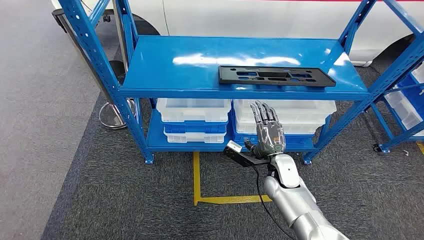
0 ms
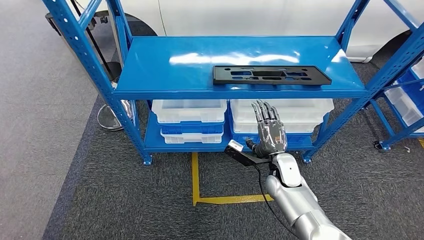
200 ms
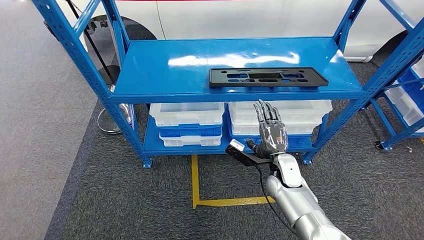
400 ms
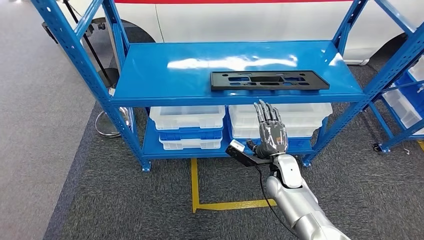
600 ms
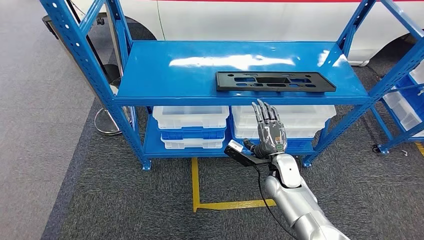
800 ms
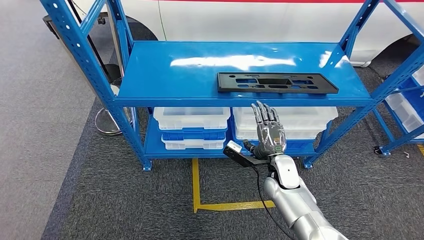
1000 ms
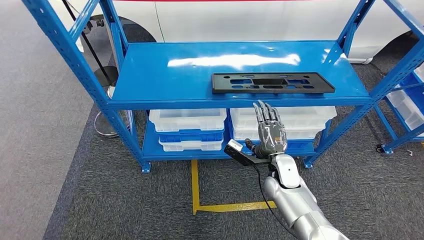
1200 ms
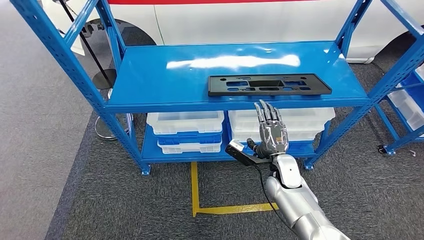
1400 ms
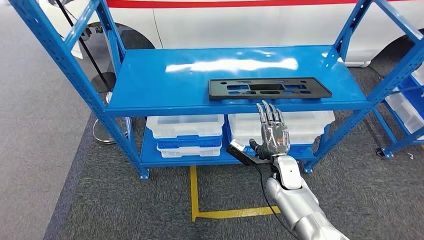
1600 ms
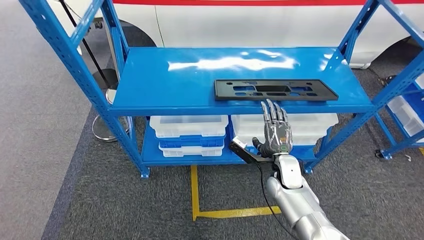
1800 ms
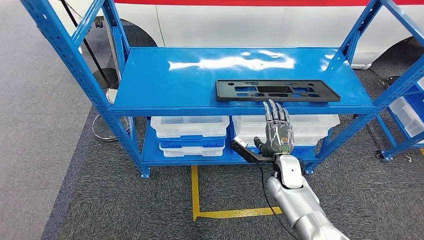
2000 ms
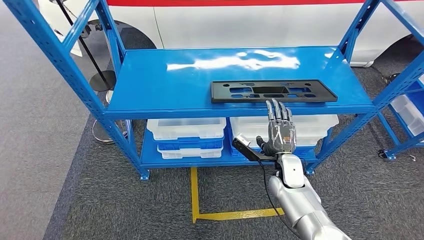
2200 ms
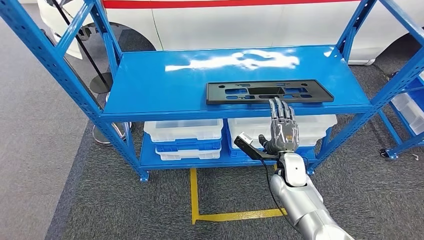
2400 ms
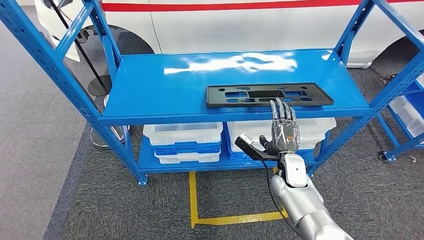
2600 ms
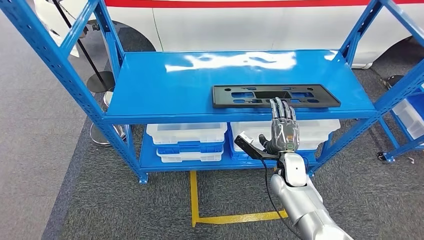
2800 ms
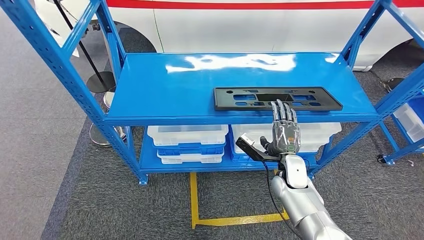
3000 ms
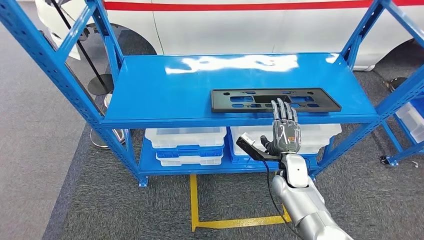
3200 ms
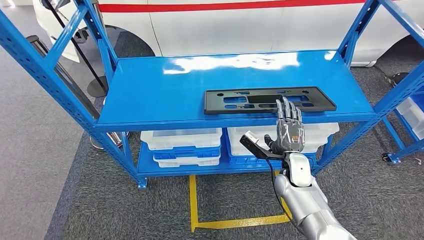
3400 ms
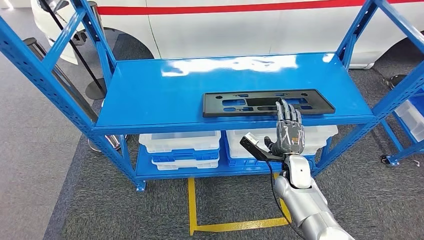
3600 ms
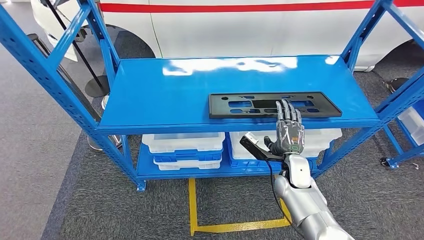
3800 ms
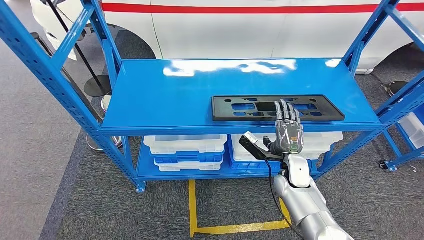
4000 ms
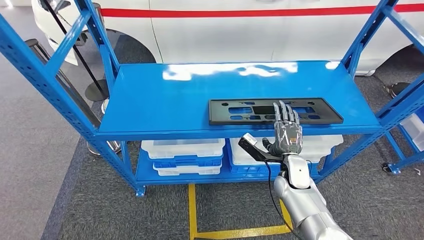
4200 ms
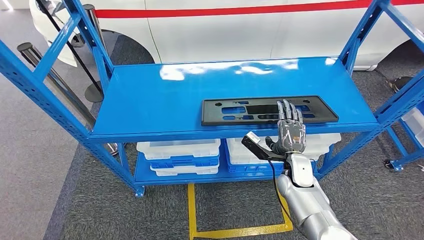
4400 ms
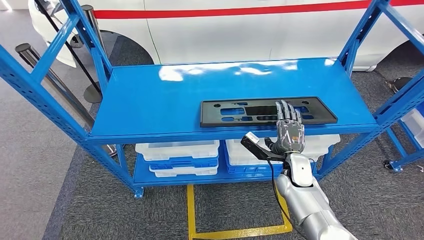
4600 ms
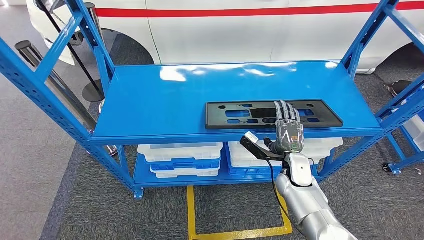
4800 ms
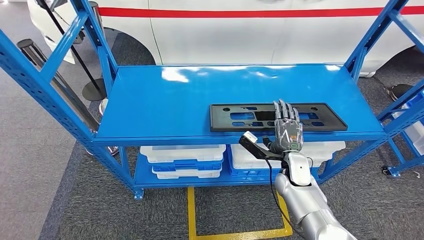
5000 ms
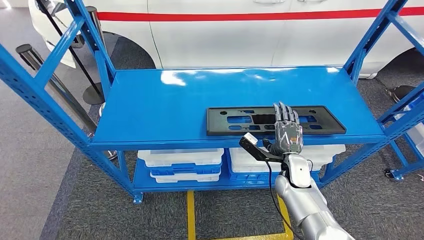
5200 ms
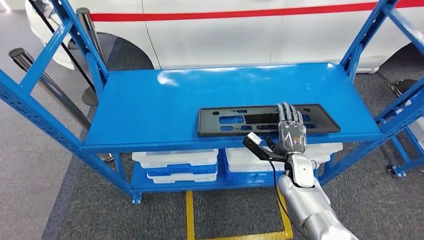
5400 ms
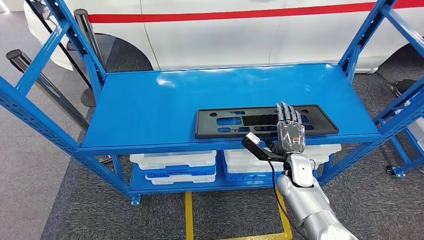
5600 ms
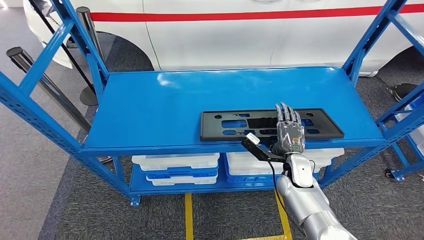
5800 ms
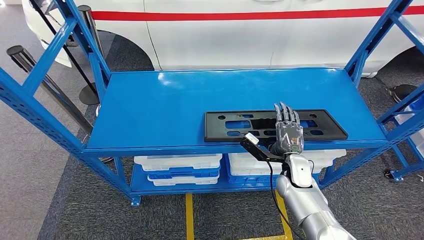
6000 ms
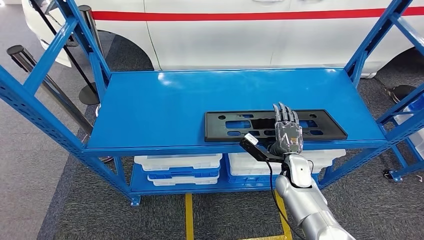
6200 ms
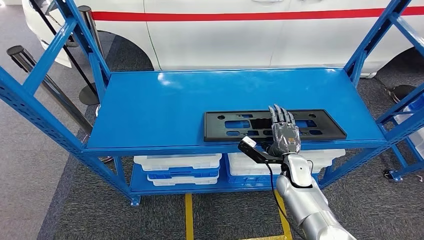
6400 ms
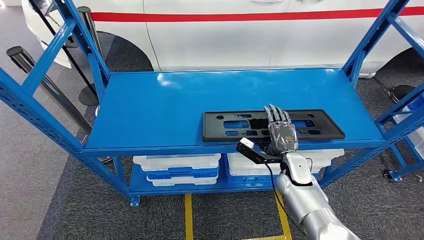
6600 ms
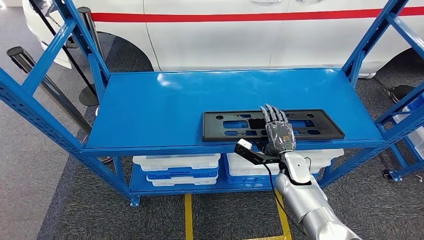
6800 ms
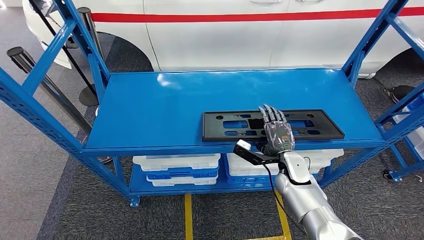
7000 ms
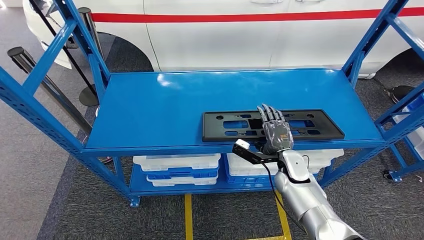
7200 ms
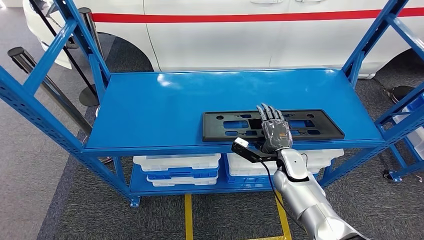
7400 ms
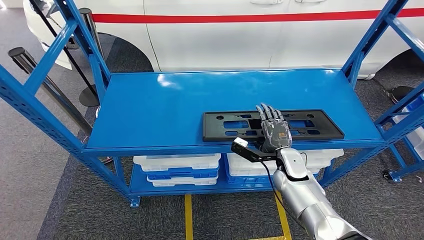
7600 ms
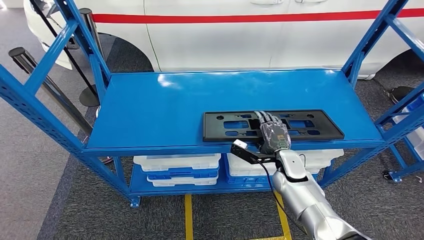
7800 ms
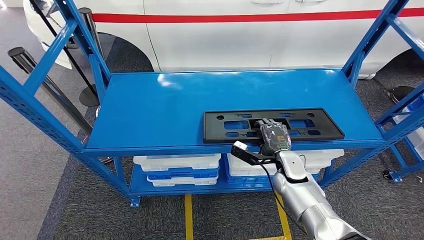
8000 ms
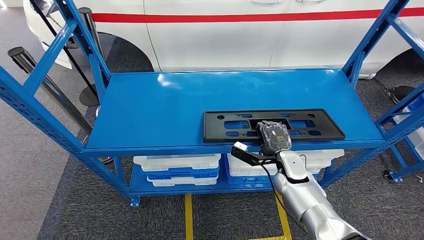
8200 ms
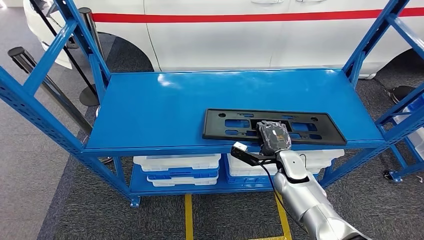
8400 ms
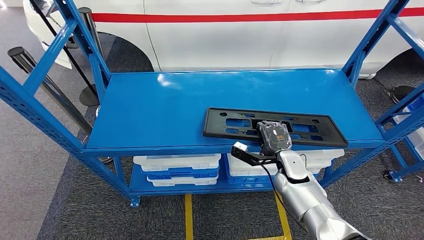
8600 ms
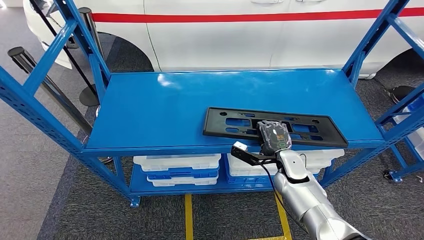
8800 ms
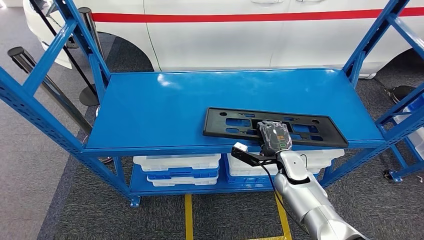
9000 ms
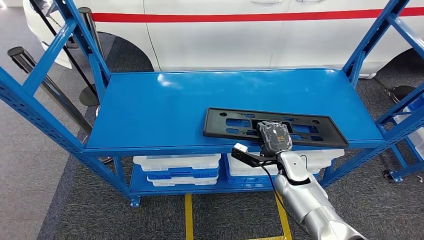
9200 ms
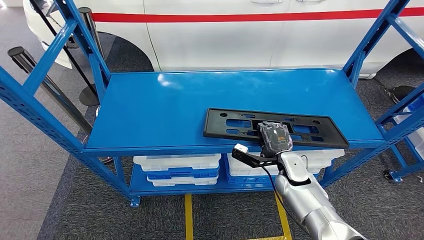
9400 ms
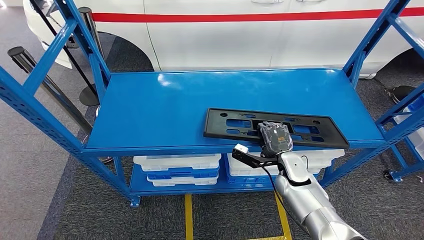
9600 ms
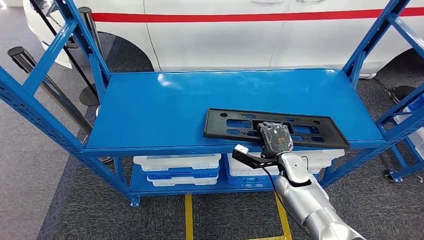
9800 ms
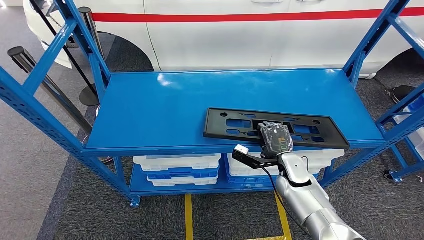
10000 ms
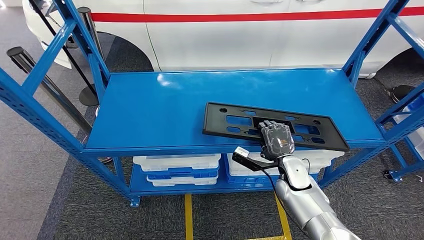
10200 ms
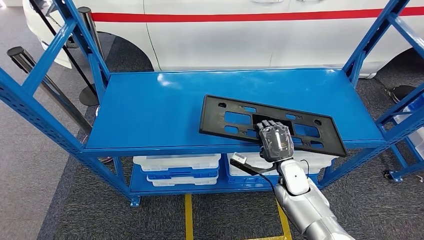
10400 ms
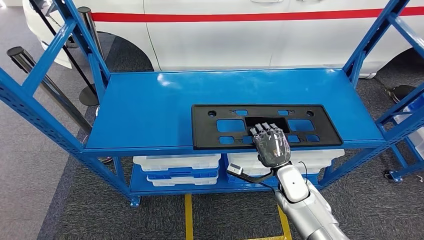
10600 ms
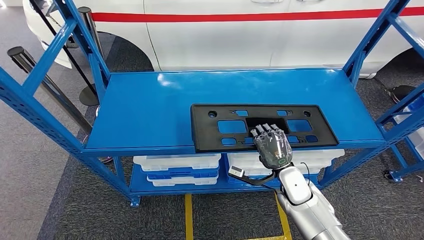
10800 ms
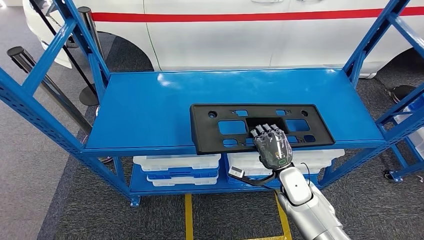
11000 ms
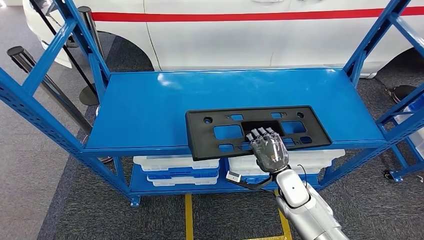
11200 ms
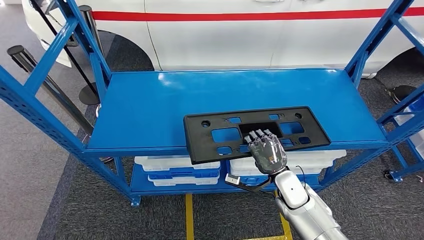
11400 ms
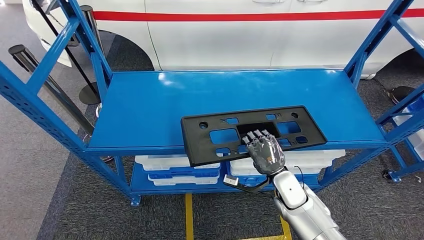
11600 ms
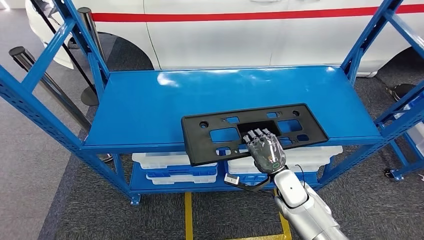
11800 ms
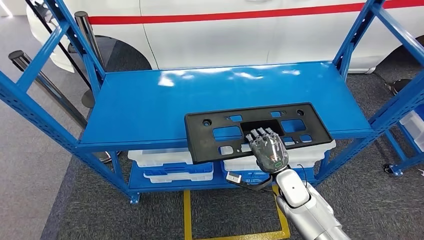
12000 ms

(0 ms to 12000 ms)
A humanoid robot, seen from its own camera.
Step, 0 ms - 10800 ms: Pick up the large material from the shelf.
6000 ms - 7600 ms: The hands make only small movements.
7600 ms - 9000 ms: Both hands stay about where they are.
9000 ms - 10400 ms: The hands move only a little.

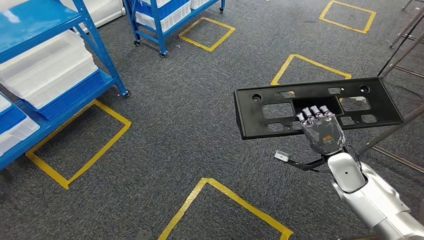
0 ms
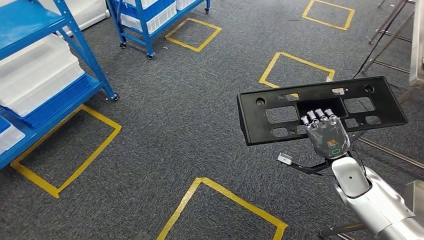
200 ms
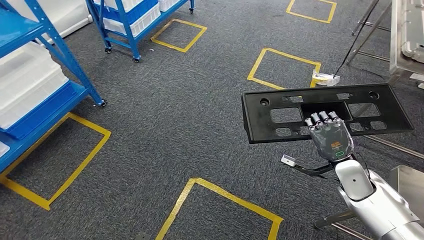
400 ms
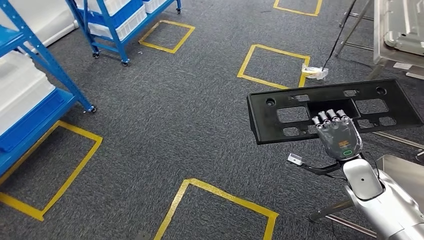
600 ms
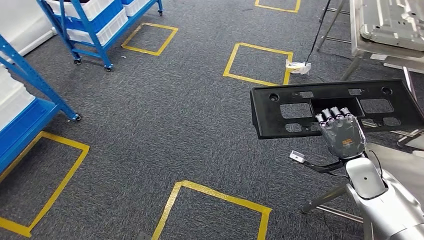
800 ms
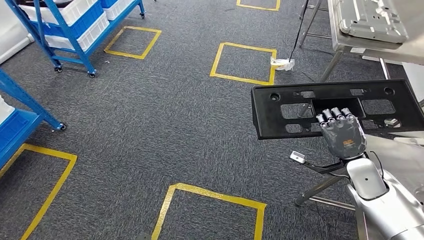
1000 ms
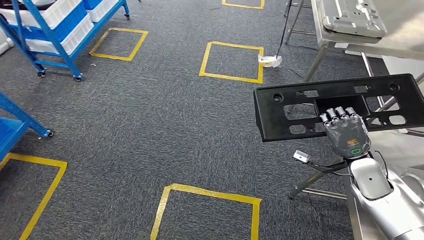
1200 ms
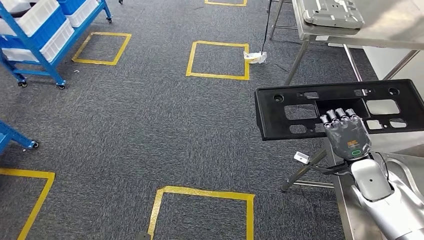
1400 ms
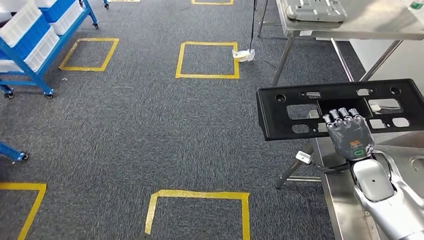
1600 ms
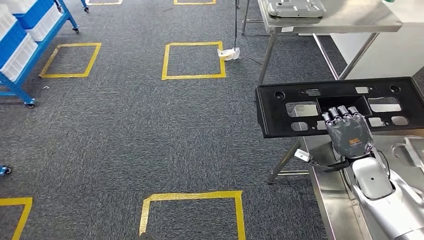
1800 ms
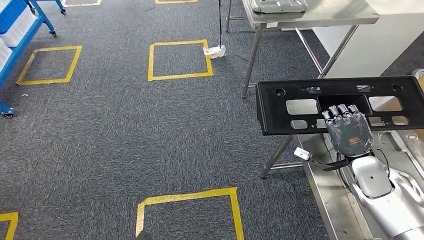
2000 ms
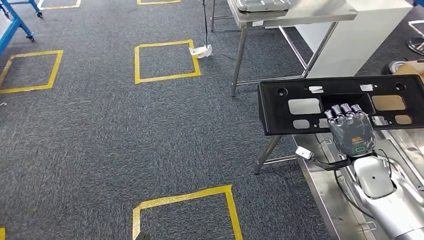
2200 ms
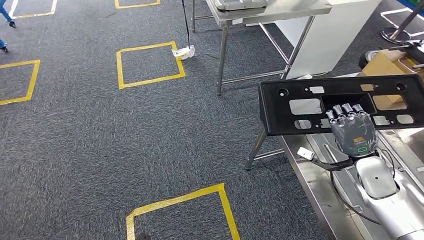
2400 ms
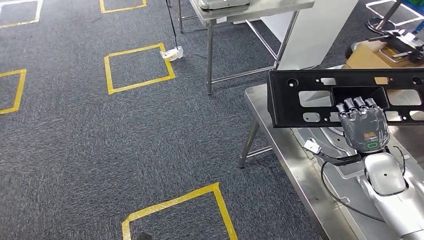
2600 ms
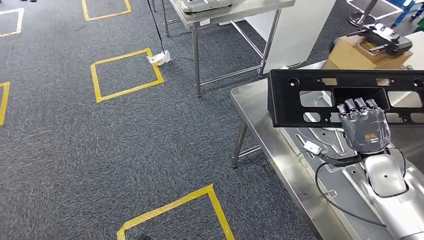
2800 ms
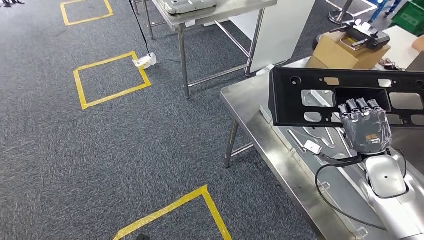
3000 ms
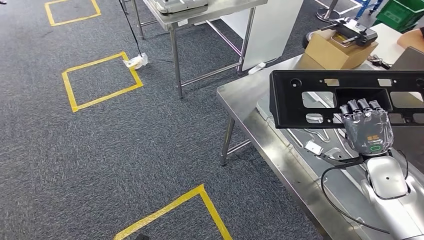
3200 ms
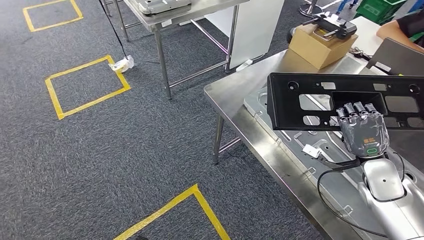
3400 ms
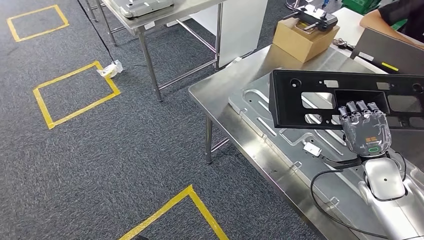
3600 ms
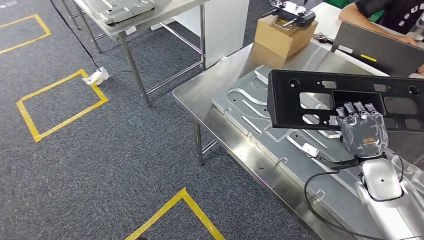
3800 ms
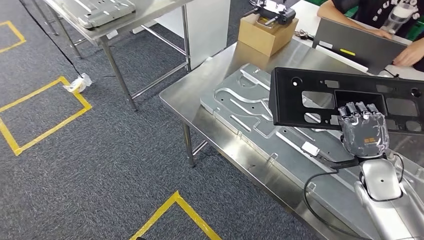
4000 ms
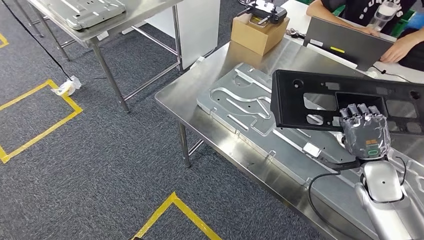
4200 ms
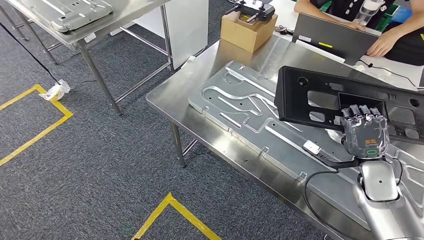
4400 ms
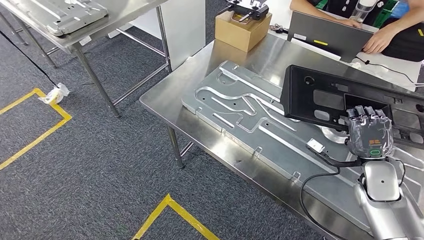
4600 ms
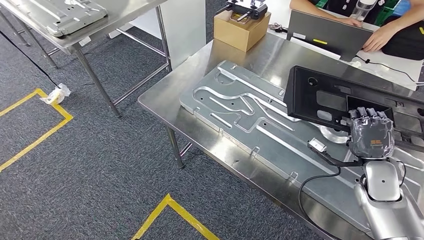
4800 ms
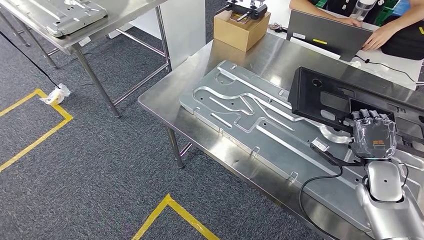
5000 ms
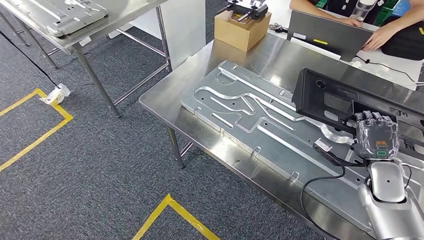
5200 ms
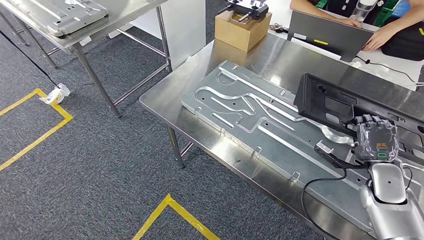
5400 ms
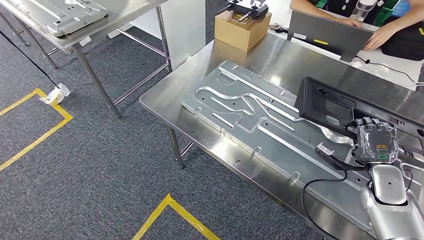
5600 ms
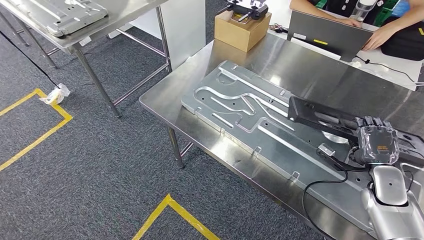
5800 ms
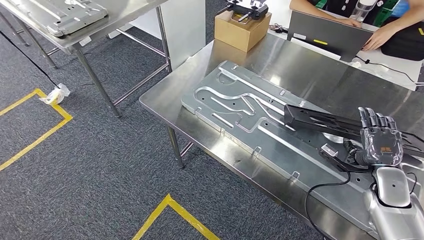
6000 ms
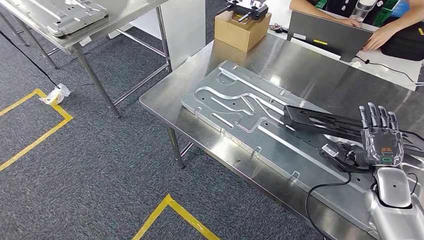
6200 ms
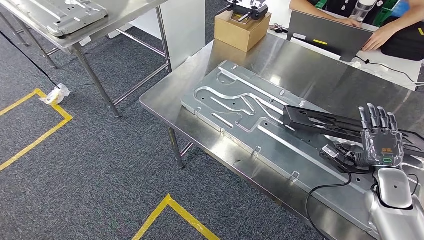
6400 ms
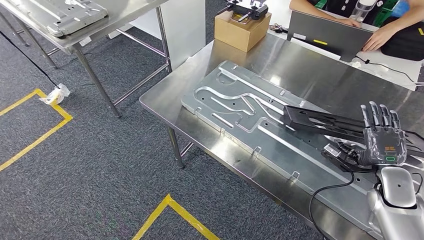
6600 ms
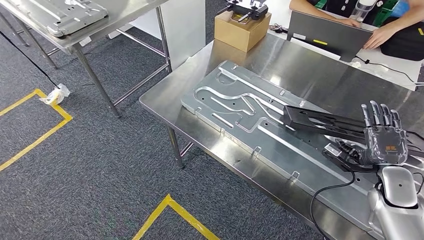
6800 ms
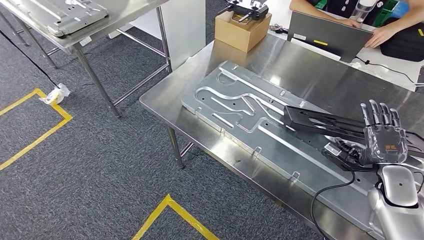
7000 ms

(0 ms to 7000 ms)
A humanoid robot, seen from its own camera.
5600 ms - 7000 ms: The hands move only a little.
